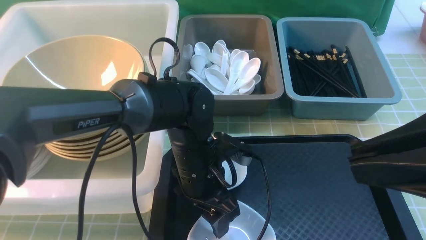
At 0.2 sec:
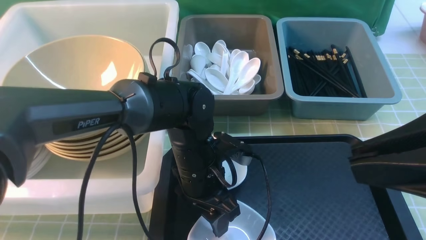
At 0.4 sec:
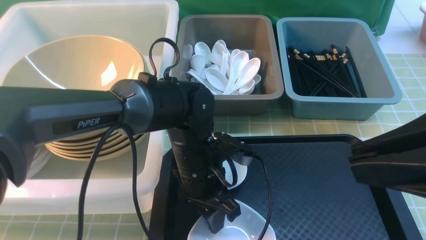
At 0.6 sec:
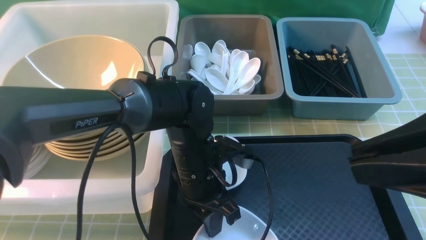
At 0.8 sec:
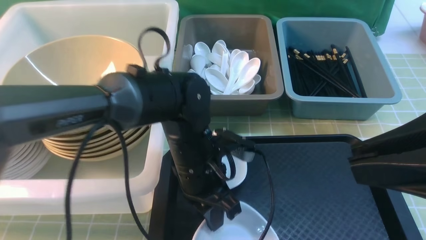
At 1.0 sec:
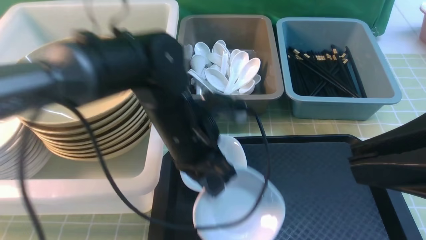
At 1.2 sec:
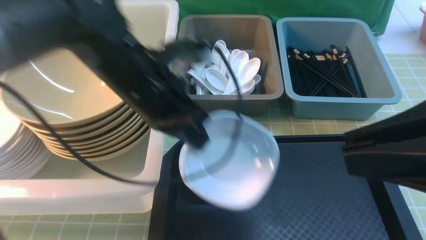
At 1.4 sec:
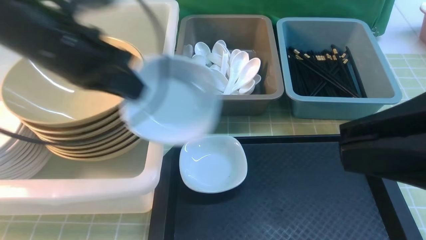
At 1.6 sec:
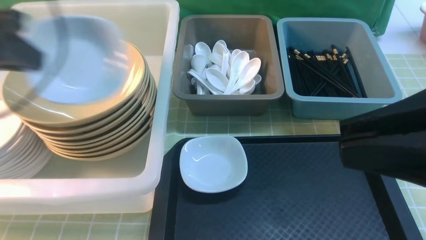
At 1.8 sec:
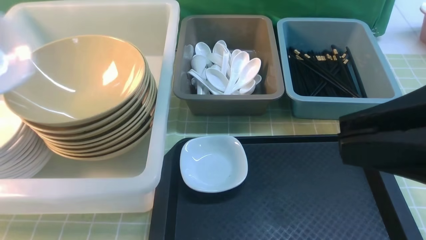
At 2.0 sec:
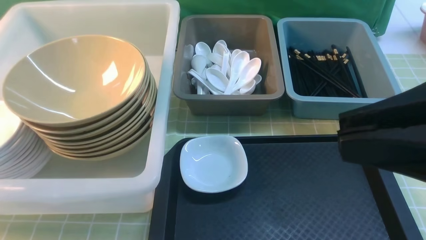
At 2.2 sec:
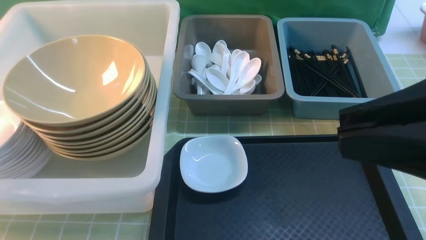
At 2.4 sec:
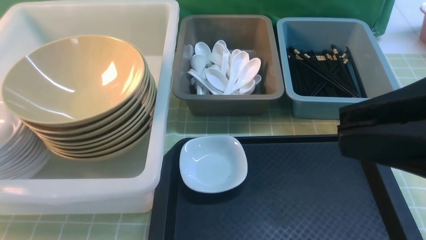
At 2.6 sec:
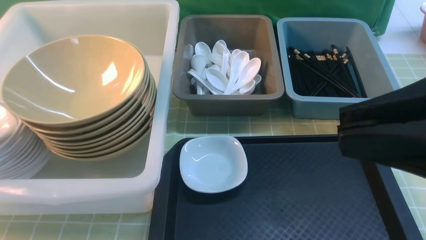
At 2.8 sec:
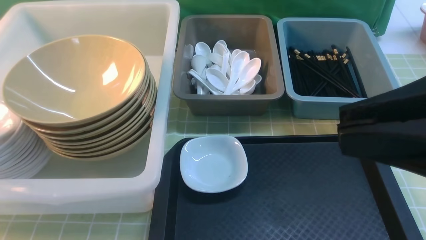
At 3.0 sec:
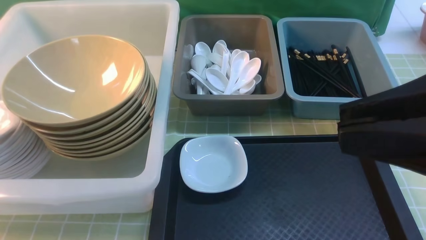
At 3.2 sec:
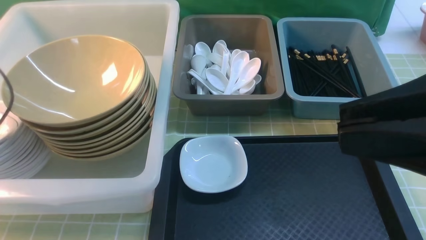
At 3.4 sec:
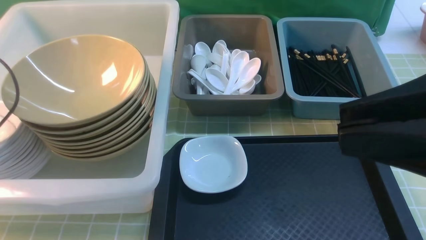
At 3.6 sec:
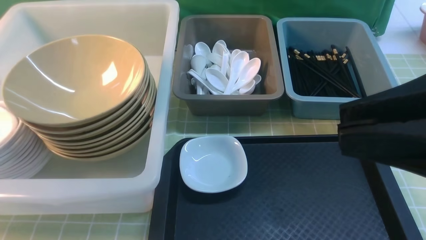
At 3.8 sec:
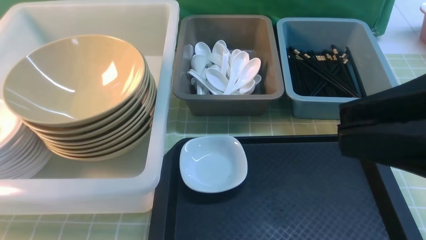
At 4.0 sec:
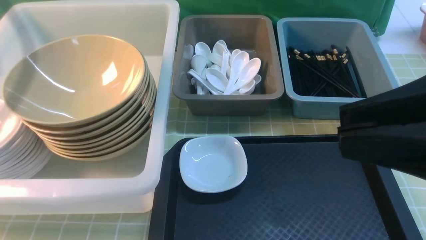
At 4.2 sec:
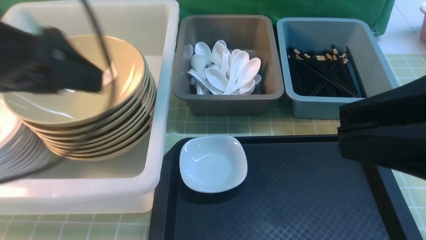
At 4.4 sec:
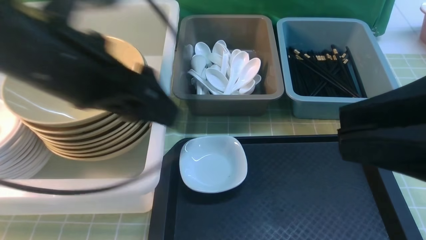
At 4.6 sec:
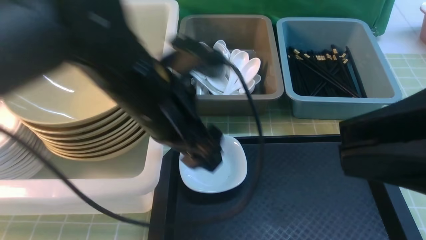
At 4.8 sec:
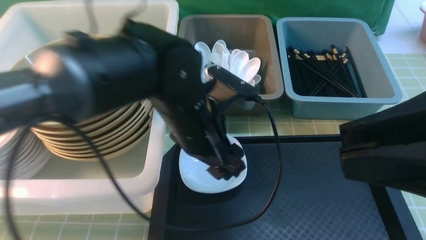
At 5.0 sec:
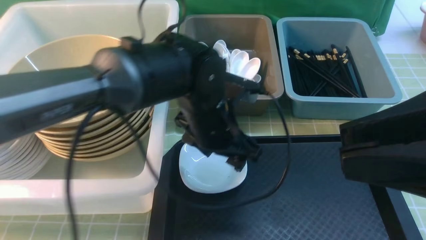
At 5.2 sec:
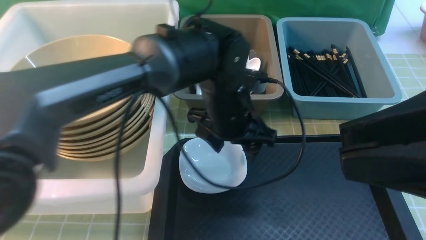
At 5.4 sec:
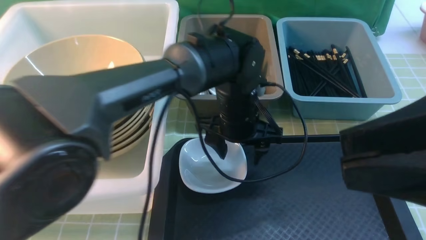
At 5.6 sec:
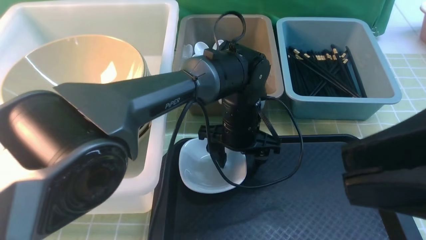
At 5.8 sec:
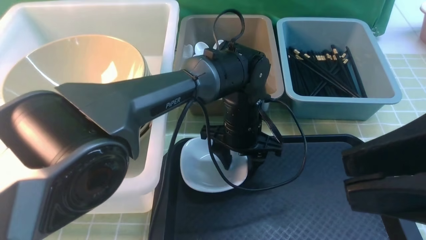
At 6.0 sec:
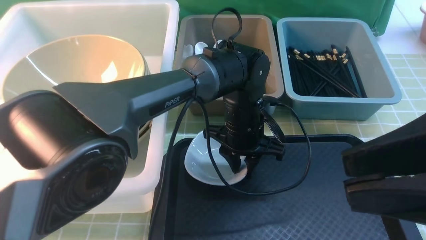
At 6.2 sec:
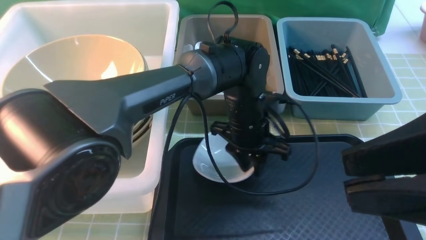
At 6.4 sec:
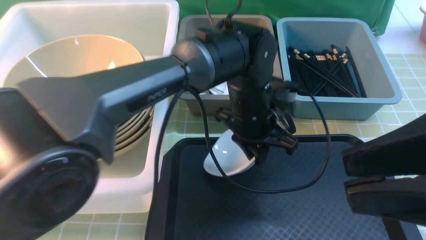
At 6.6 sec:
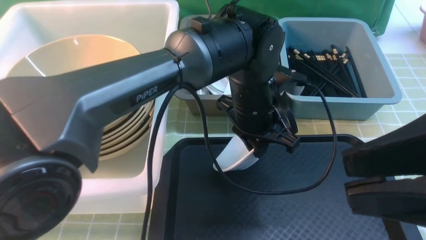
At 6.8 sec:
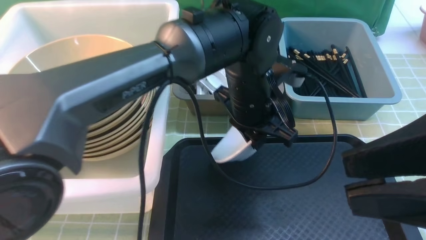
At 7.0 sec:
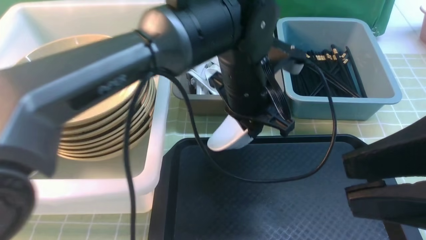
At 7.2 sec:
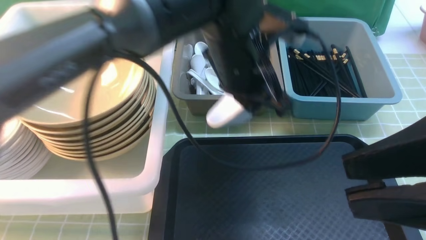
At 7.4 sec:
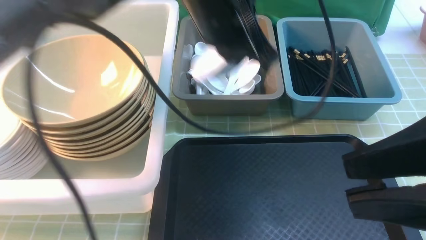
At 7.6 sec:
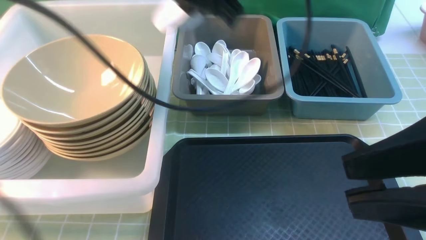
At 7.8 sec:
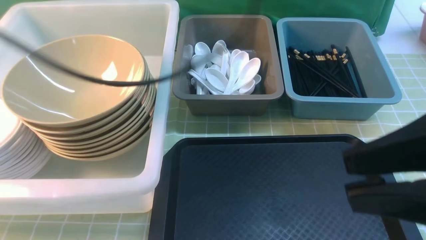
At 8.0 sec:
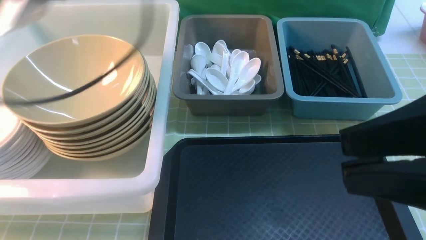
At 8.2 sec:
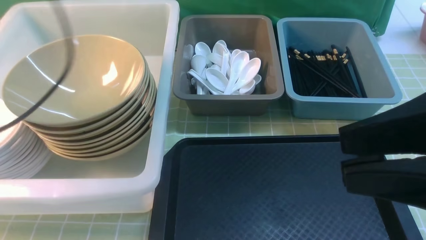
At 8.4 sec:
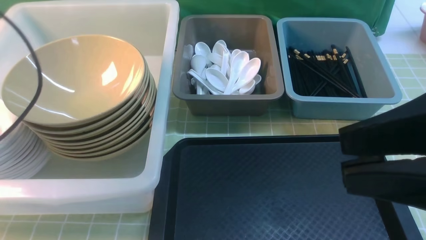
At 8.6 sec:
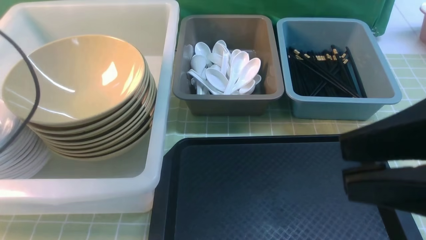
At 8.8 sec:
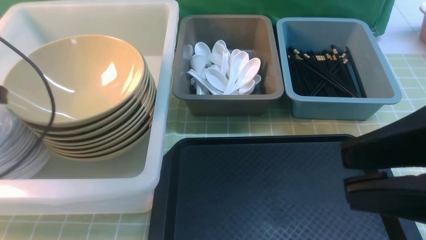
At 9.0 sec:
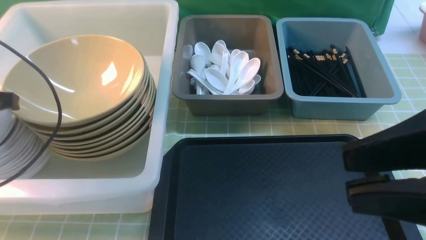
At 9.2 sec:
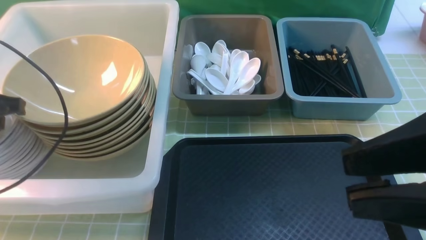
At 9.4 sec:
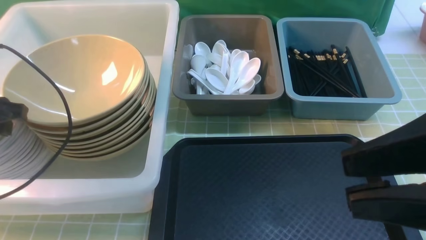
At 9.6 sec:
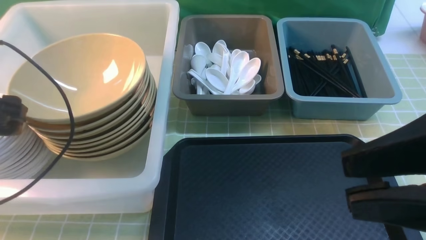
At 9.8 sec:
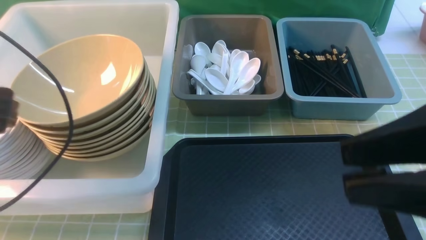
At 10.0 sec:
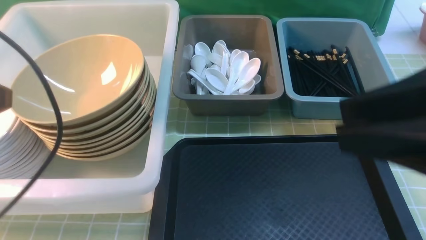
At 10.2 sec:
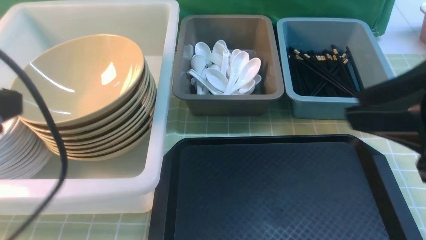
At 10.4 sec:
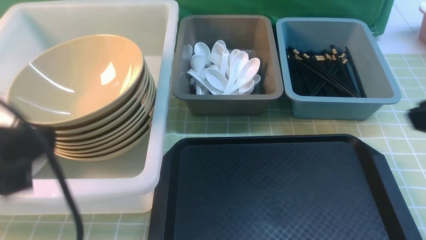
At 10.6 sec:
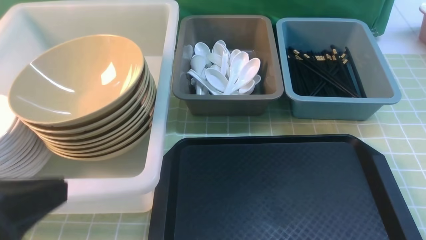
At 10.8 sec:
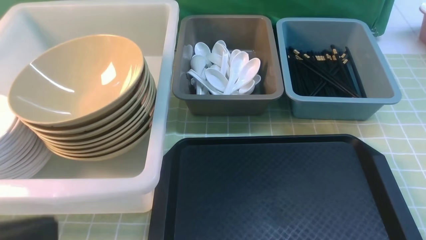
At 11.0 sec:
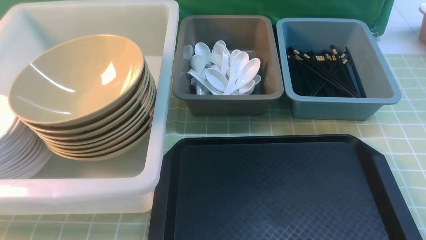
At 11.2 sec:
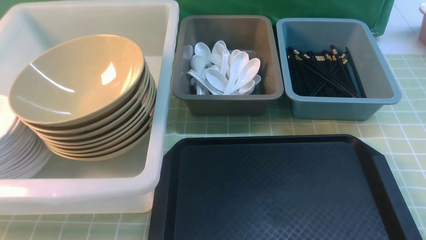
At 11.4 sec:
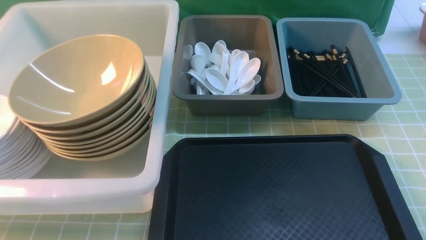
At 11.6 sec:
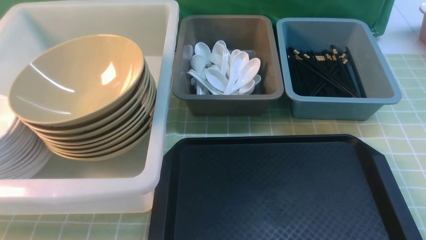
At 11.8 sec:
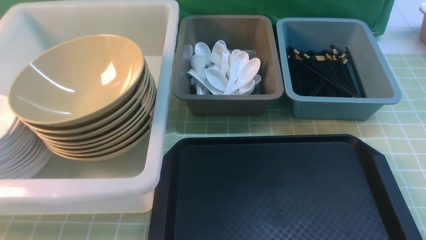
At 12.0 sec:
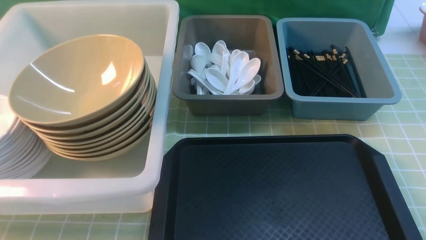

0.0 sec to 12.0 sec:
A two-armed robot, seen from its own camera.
Task of the whole recording: on green table put chopsticks spoon bowls plates into blue grey white boxes.
Step, 1.4 sec to 3.6 sec: use the left arm to put the plate into the large storage box on the left.
Step, 3.8 sec to 6.2 sec: use the left arm to grab the plate.
Step, 6.4 sec to 8.6 sec: use the left arm to put the plate into the large storage box on the left.
0.0 sec to 1.6 sec: The left gripper is displaced to the left and upward by roughly 35 cm, and closes its fingers.
1.6 sec to 3.0 sec: The left gripper travels to the left and downward by roughly 15 cm, and opens its fingers.
3.0 sec to 4.4 sec: The left gripper moves to the right, about 30 cm.
4.4 sec to 6.0 sec: The left gripper shifts roughly 30 cm downward, to the right and forward, and closes.
6.0 sec to 7.6 sec: The left gripper travels upward by some 30 cm.
7.6 sec to 9.0 sec: The left gripper heads to the left and downward, covering approximately 30 cm.
9.0 sec to 10.4 sec: The right gripper changes place by approximately 10 cm; the left gripper goes approximately 20 cm backward and to the right, and opens, then closes once more.
10.4 sec to 12.0 sec: The left gripper is displaced backward and downward by approximately 10 cm. Meanwhile the right gripper travels downward and backward by some 15 cm.

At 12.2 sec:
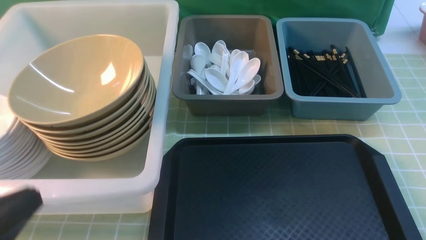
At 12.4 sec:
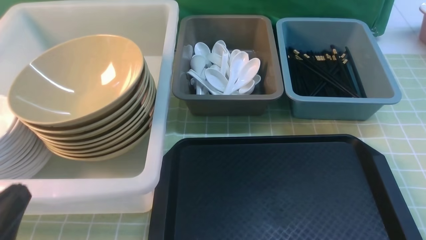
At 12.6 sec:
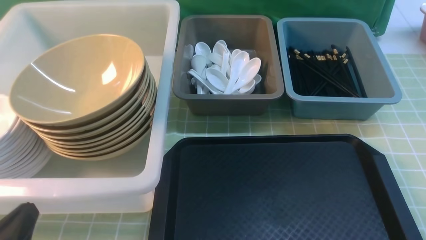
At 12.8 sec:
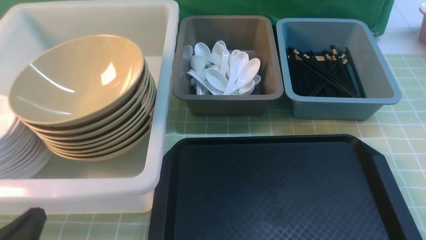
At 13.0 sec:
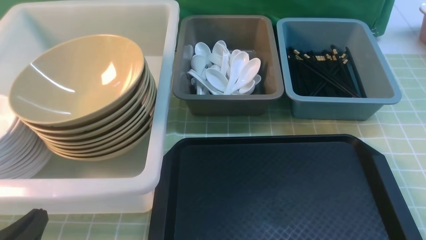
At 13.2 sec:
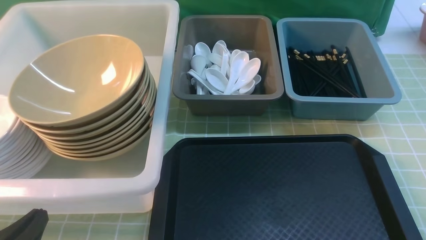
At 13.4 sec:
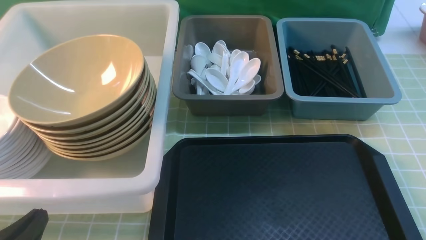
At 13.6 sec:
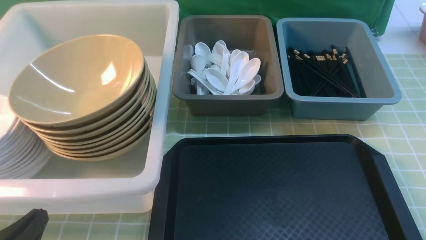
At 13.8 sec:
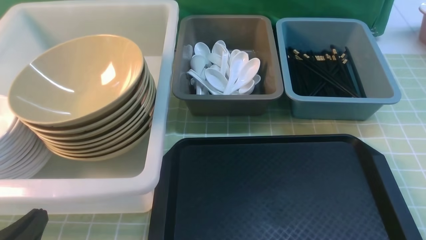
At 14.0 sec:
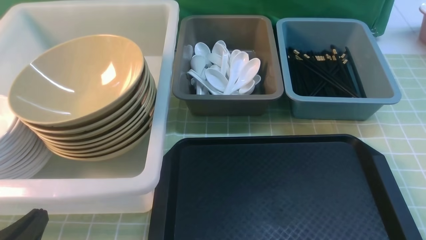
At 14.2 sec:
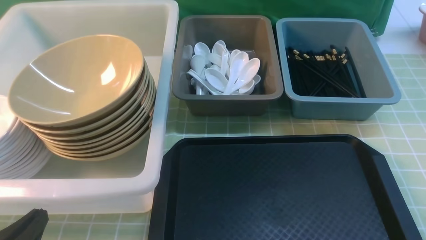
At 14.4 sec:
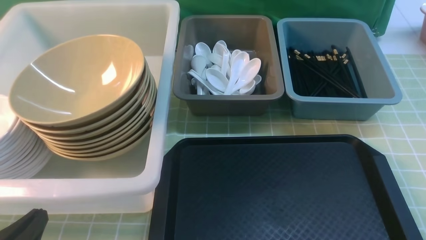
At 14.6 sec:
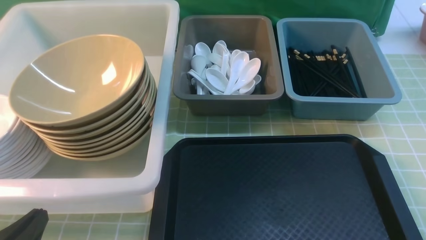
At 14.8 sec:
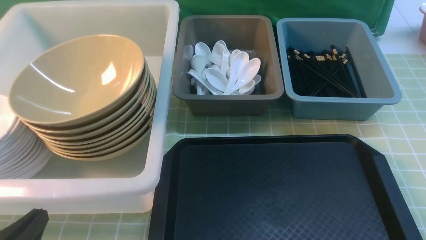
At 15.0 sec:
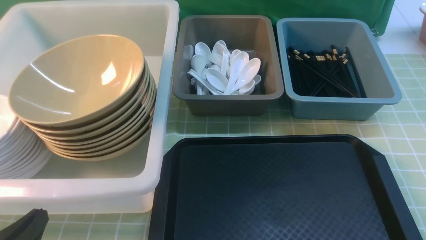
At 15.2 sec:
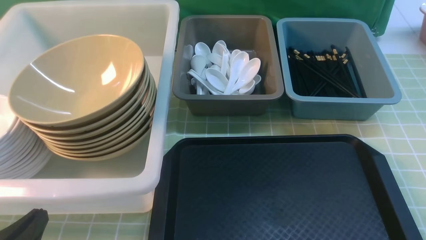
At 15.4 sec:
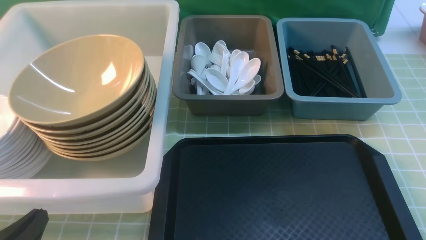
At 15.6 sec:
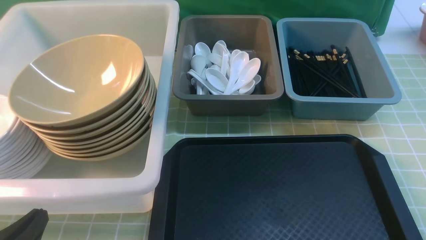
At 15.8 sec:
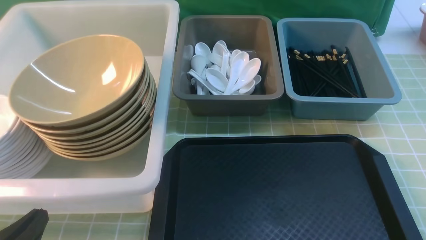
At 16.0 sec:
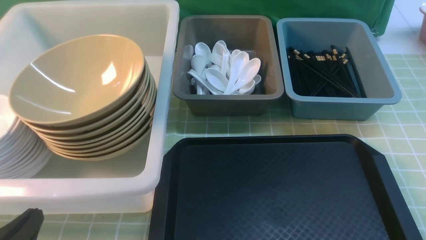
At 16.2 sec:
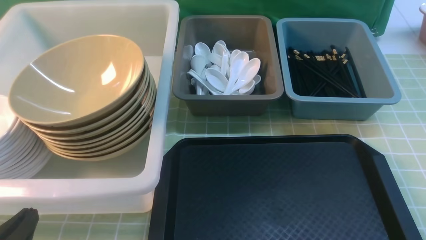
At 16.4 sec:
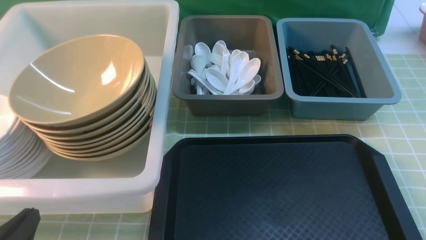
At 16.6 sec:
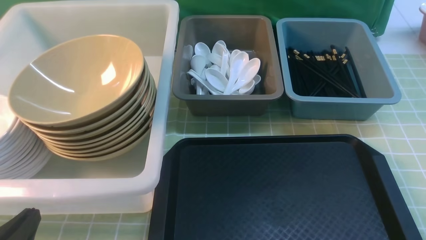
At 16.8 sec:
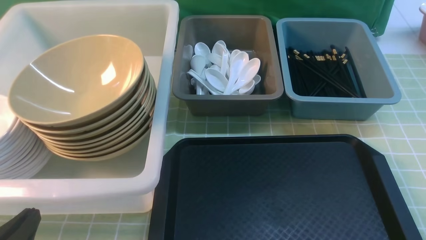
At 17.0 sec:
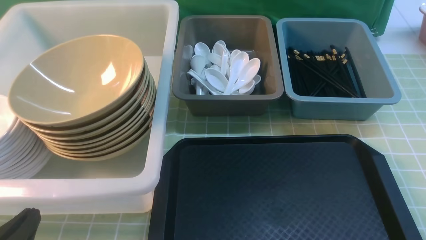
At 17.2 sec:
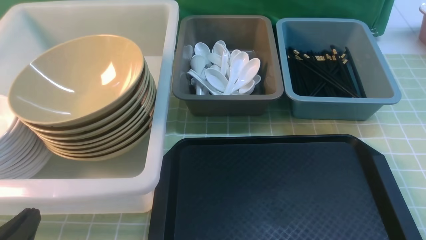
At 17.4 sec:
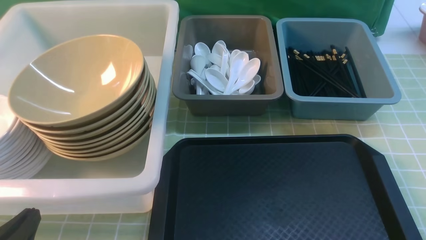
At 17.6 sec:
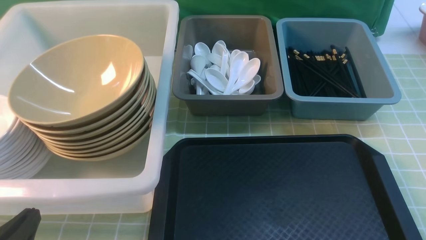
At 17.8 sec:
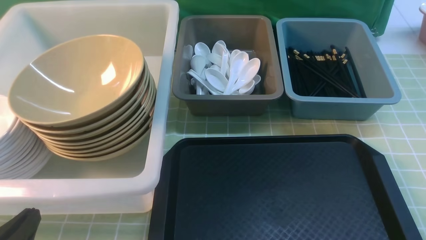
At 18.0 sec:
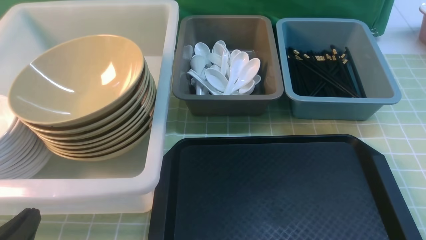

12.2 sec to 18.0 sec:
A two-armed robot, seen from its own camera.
Task of the whole recording: on green table put chopsticks spoon bowls plates into blue grey white boxes.
12.2 sec to 13.6 sec: The left gripper heads downward, covering approximately 10 cm.
15.0 sec to 18.0 sec: Both grippers stay put.
